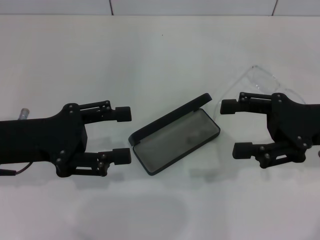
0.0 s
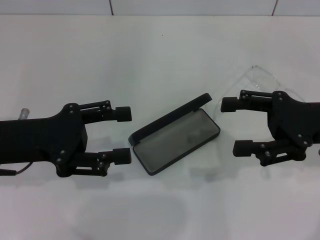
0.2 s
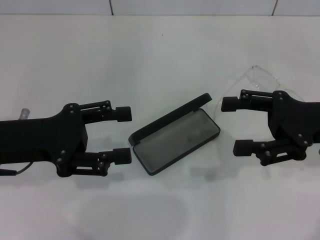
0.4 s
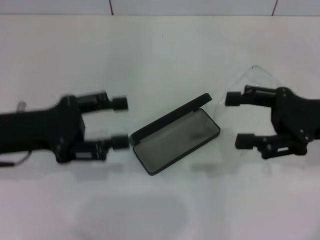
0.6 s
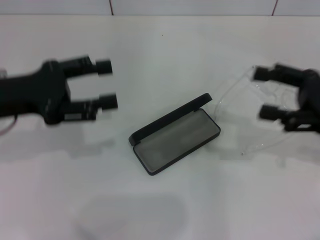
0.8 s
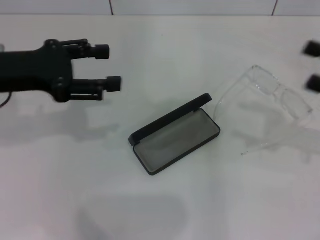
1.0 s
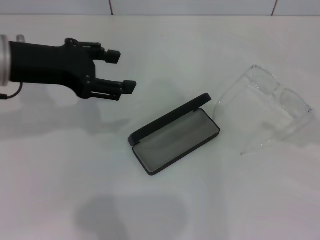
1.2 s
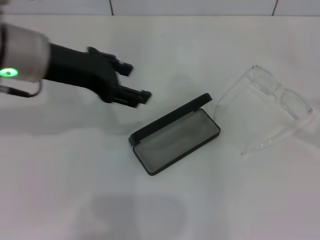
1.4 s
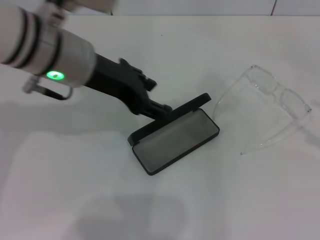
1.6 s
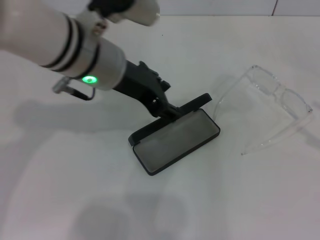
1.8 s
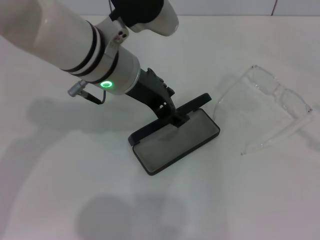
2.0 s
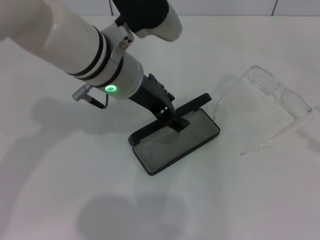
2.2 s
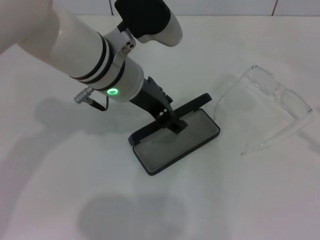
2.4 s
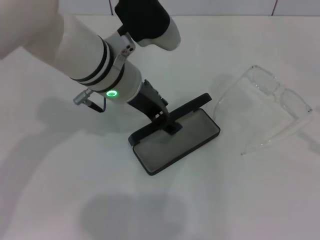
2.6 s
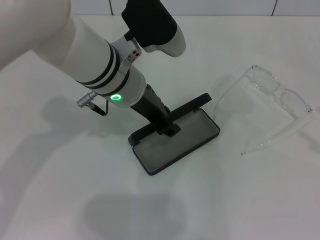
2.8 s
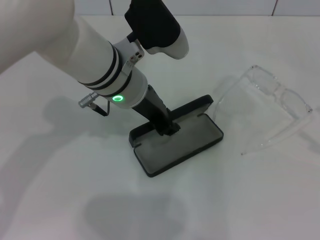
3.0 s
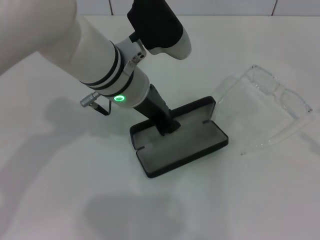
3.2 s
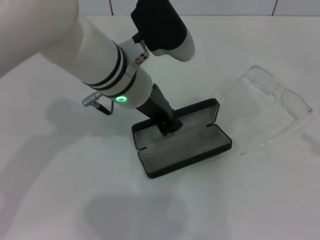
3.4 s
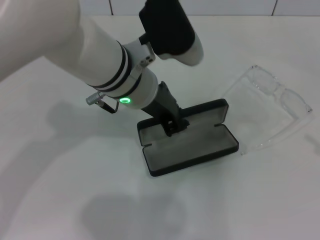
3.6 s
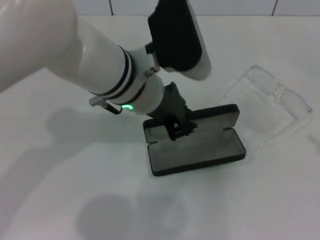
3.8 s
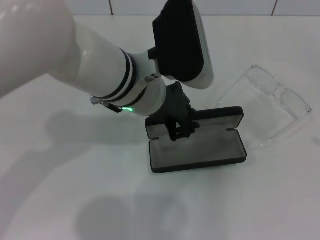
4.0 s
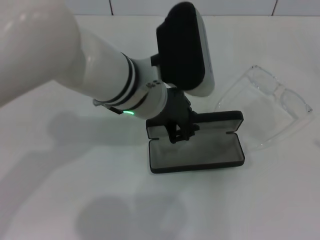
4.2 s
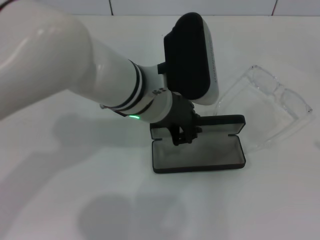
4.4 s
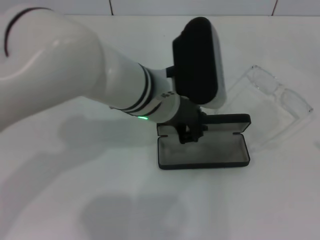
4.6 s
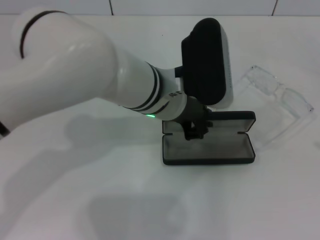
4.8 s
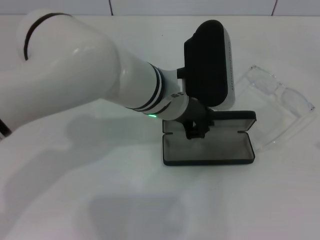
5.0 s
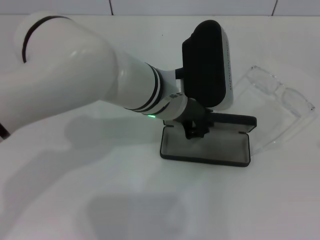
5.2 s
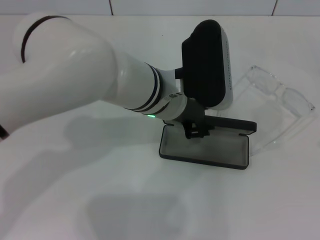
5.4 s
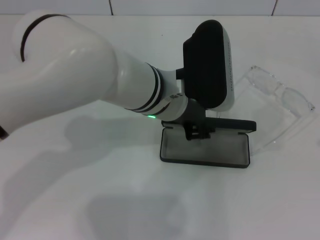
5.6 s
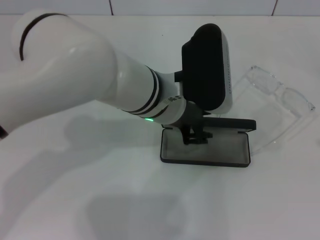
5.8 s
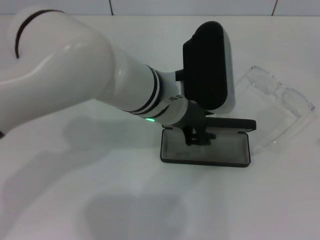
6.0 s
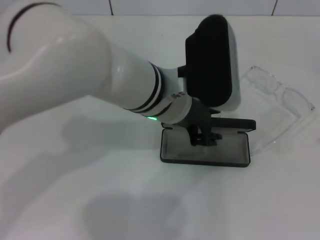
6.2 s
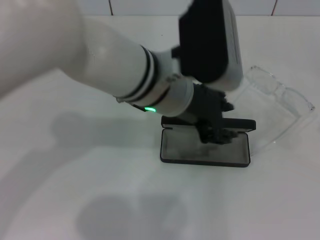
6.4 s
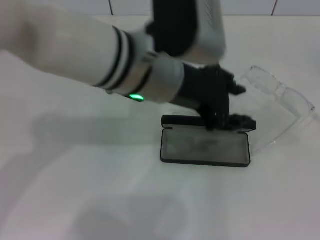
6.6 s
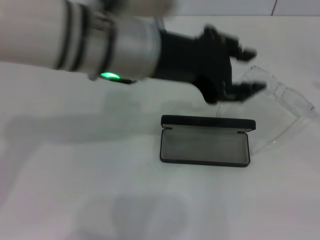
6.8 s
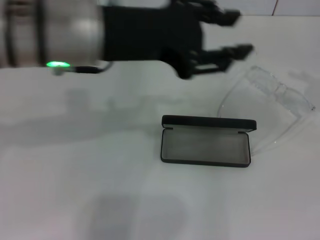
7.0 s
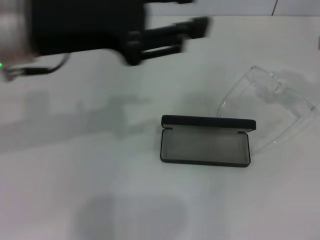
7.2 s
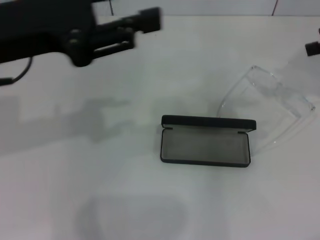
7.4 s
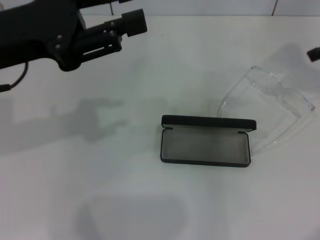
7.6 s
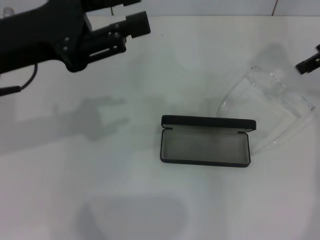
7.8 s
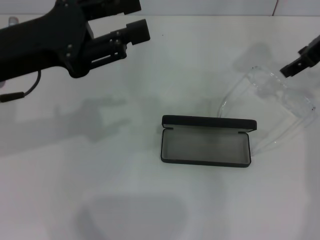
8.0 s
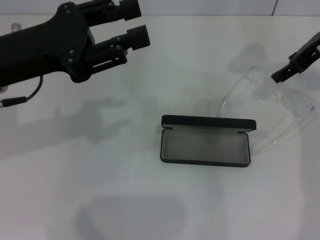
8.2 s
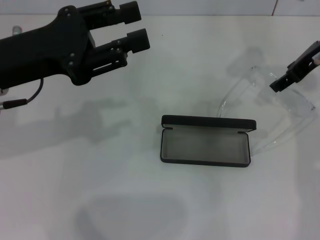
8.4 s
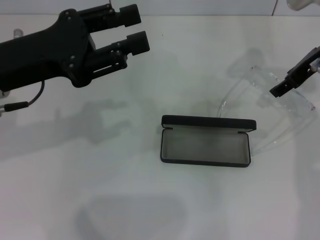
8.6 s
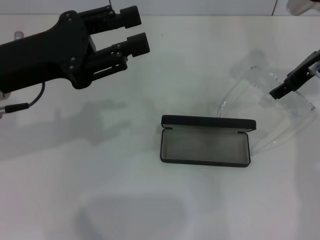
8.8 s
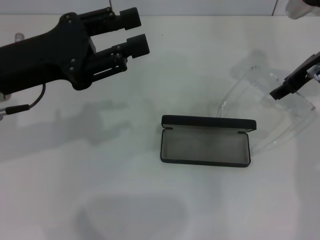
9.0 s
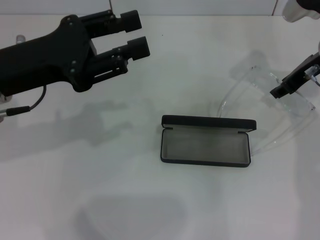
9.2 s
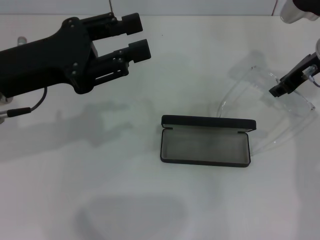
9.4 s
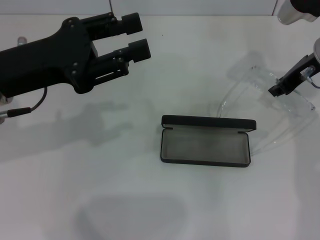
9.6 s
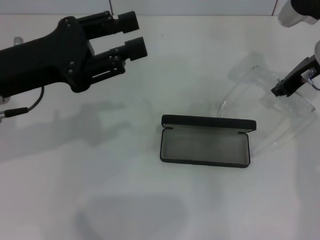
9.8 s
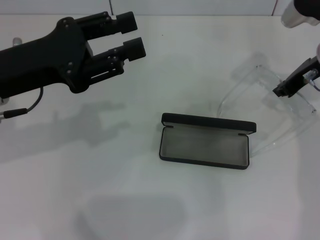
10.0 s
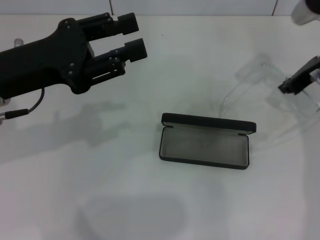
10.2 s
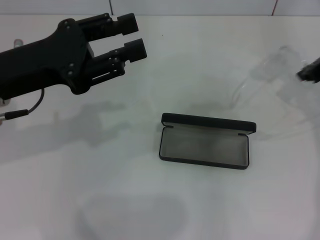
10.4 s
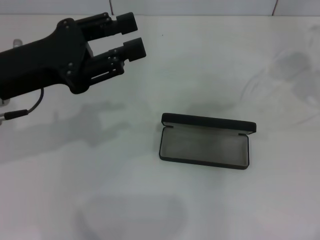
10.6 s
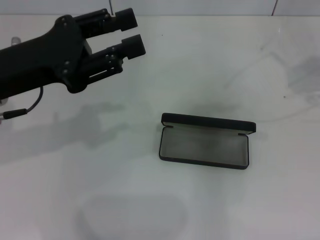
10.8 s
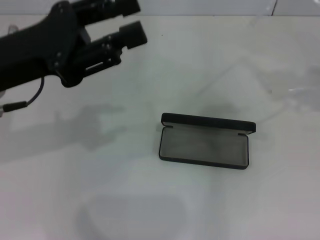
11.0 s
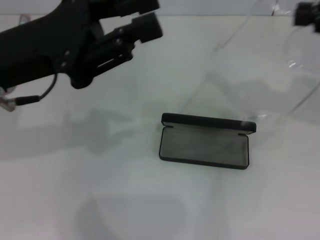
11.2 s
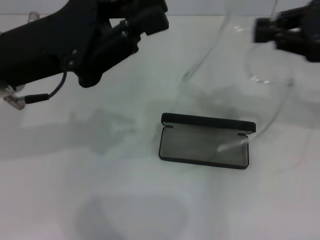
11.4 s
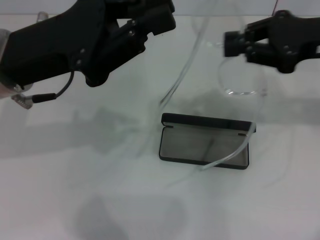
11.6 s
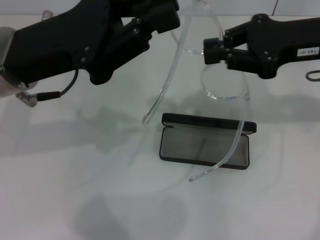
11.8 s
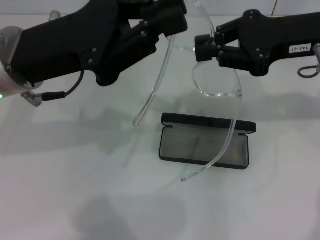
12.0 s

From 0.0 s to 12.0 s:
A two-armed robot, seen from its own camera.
Step, from 0.0 s to 3.2 s: Grab the glasses case with your left hand.
Step, from 3.4 s to 5.2 s: Place the glasses case in the center of the table with your left hand.
Step, from 5.6 s to 9.8 s: Grab the eyeglass frame with your right hand.
From 0.0 s to 1.6 s: The left gripper travels to the right, upward and forward by roughly 15 cm. Meanwhile the right gripper moves to the right and backward, approximately 20 cm.
From 1.6 s to 3.0 s: The left gripper is displaced to the right and downward by some 10 cm, and closes.
From 3.0 s to 4.4 s: The left gripper closes up.
From 4.4 s to 6.0 s: The left gripper opens its fingers.
From 6.0 s to 7.6 s: The right gripper goes approximately 30 cm forward, to the left and upward. The left gripper goes approximately 20 cm to the left.
From 7.6 s to 9.0 s: The right gripper moves downward and to the left, some 10 cm.
From 9.0 s to 10.4 s: The right gripper closes.
From 10.4 s to 12.0 s: The right gripper is displaced to the left and backward by about 10 cm, while the left gripper moves approximately 5 cm, and closes its fingers.

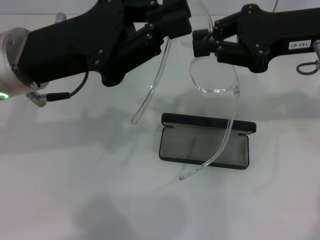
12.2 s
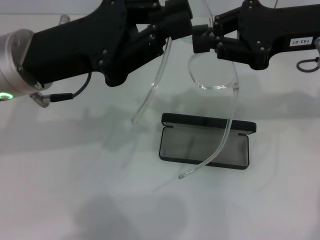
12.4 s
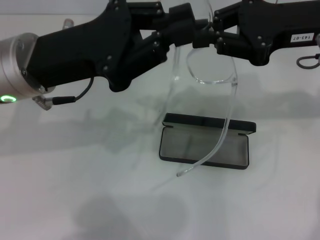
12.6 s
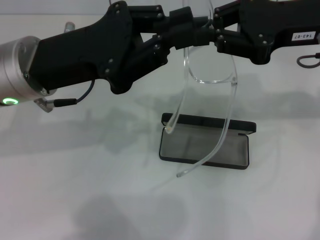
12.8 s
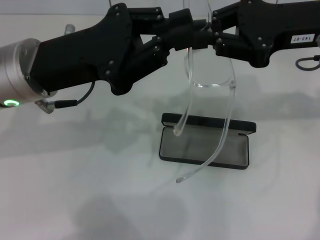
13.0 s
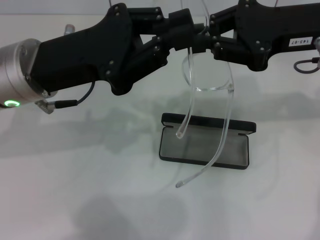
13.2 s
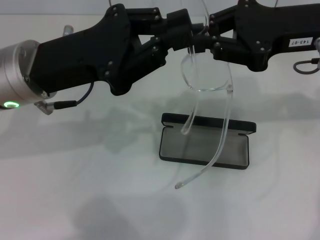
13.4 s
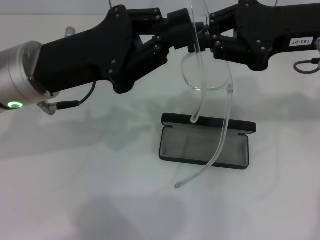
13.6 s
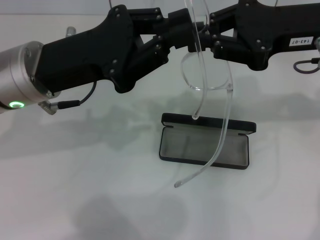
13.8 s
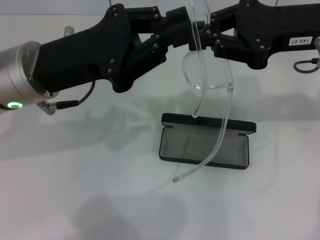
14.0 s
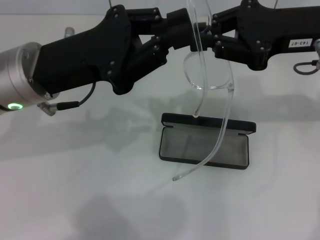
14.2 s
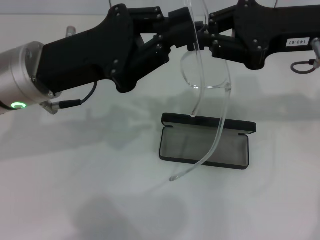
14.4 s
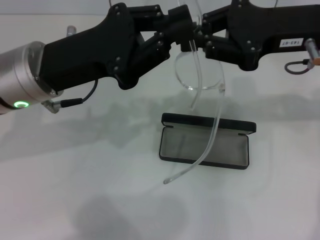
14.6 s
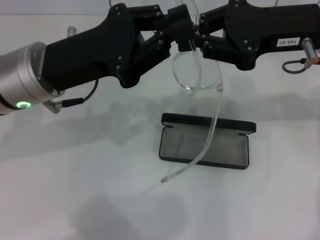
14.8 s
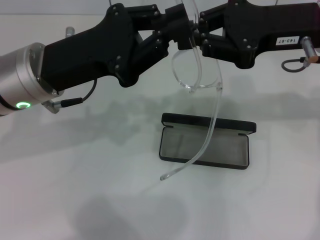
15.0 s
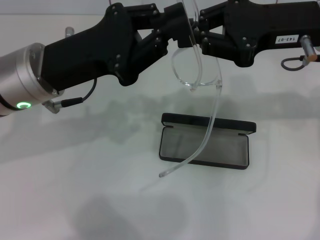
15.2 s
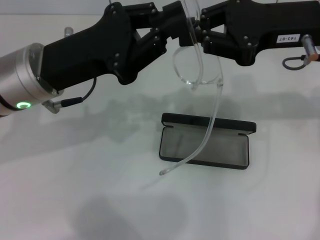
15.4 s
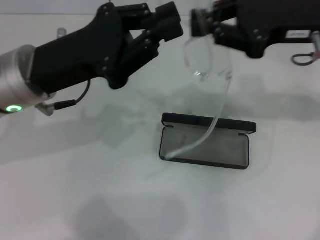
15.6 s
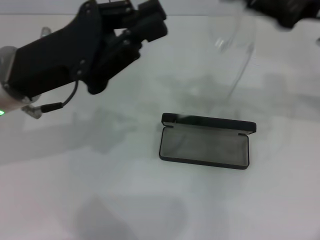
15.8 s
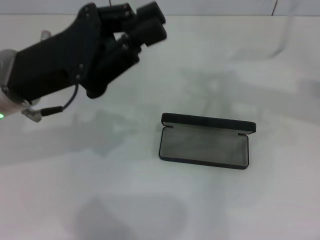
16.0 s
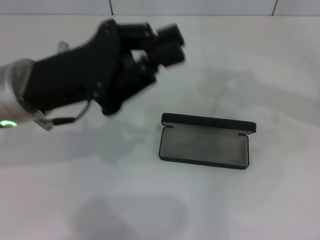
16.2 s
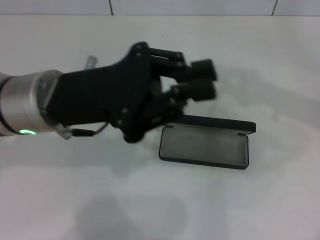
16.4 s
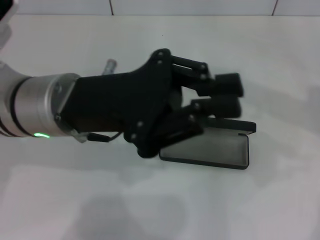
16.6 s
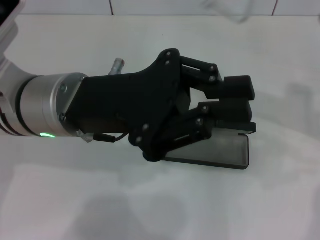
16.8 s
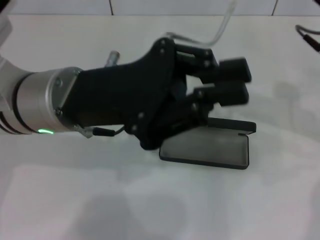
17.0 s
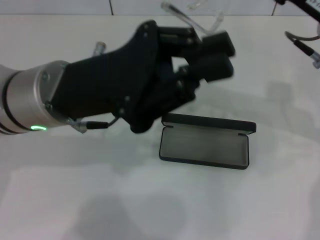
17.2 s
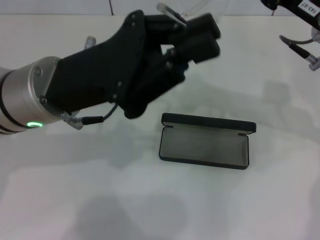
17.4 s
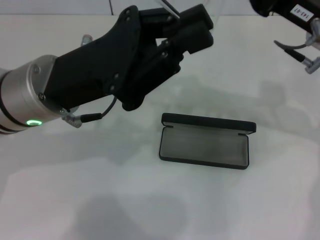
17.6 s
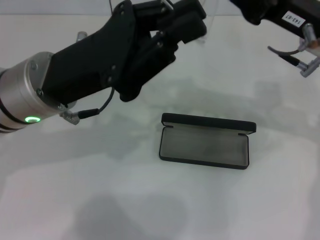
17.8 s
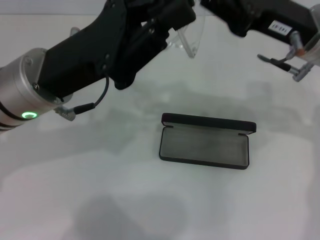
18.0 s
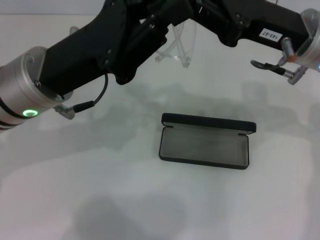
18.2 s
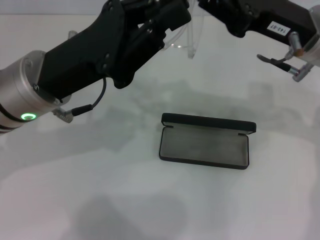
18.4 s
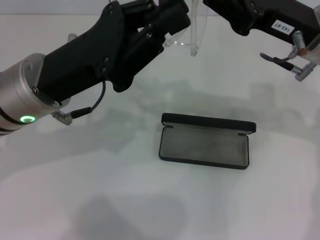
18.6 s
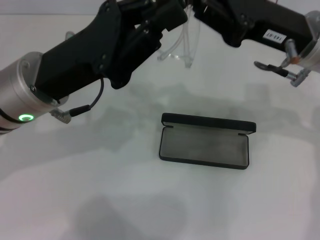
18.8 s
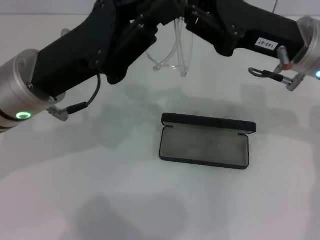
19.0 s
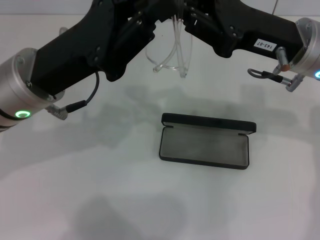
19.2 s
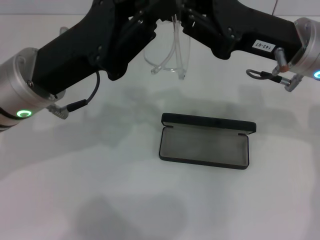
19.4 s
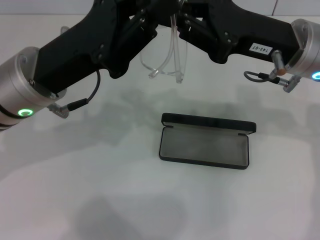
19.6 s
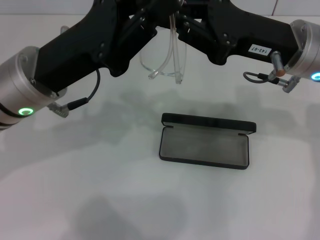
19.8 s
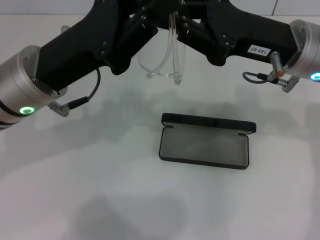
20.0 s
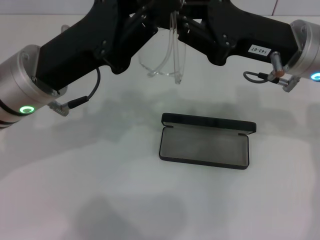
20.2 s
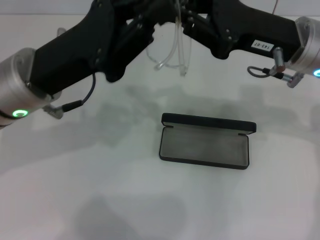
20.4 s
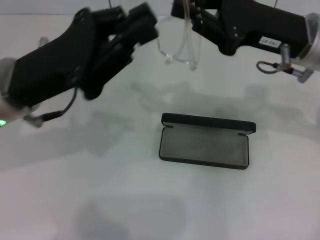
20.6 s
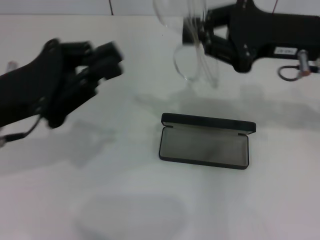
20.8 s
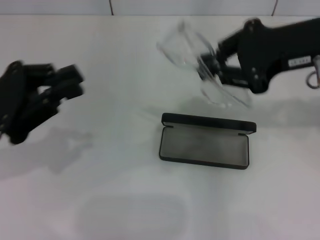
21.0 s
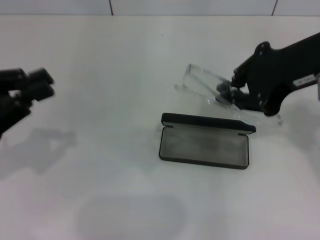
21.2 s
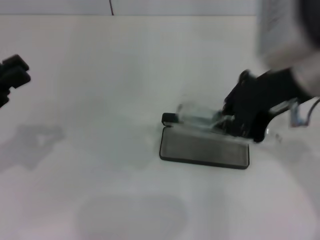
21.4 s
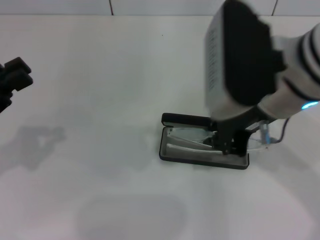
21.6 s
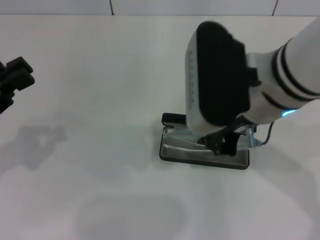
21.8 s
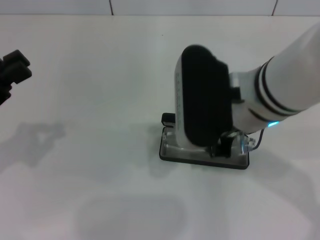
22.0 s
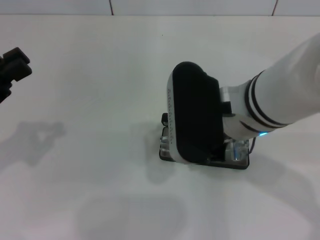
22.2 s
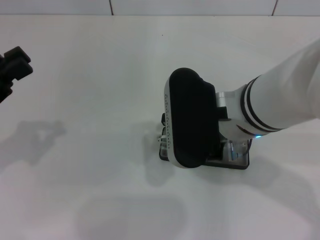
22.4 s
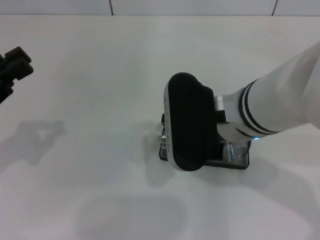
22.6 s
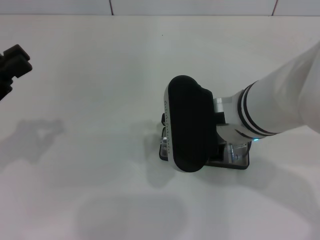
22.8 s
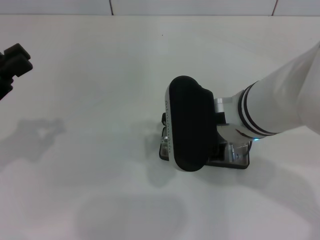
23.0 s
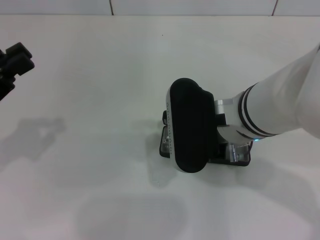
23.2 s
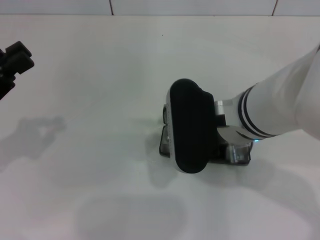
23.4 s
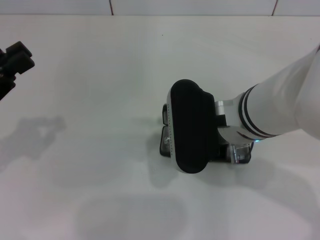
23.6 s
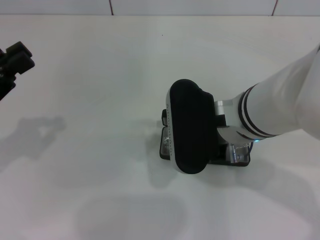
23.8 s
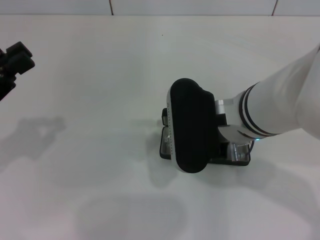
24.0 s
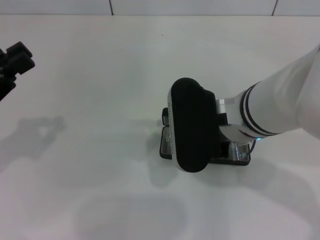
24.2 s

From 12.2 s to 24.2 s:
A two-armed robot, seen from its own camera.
Step, from 12.2 s to 19.2 s: Fold the frame with your left hand.
From 12.2 s to 15.2 s: The grippers stay close to where they were, moving slightly.
From 15.2 s to 16.6 s: The right gripper is displaced to the right by some 5 cm.
From 16.6 s to 18.2 s: The right gripper moves to the left, about 10 cm.
From 18.2 s to 19.8 s: Both grippers stay put.
From 19.8 s to 21.2 s: The left gripper heads to the left and backward, covering roughly 15 cm. Meanwhile the right gripper is displaced upward by about 10 cm.
From 21.2 s to 22.6 s: The right gripper goes approximately 15 cm to the left and downward.
From 22.6 s to 24.2 s: Both grippers stay put.
